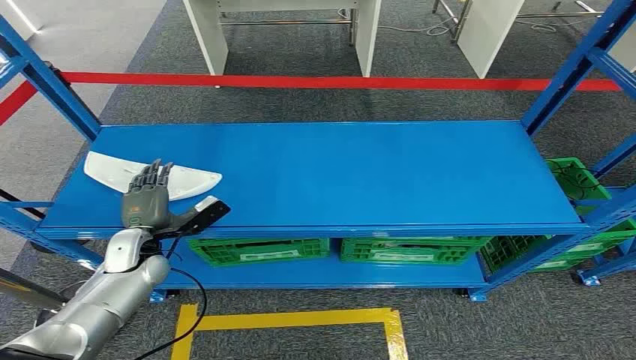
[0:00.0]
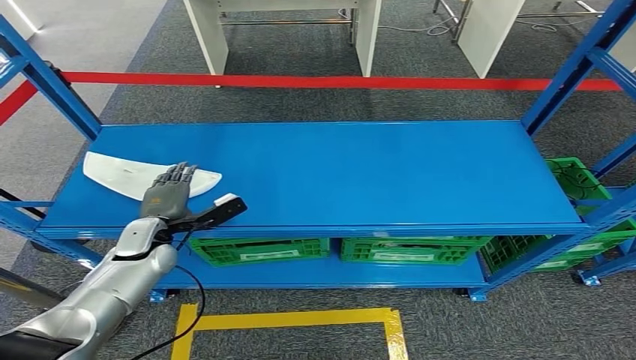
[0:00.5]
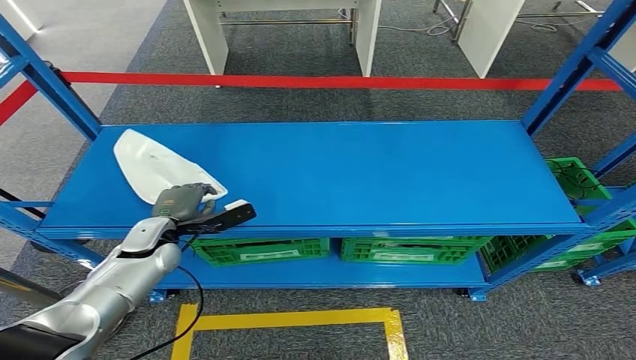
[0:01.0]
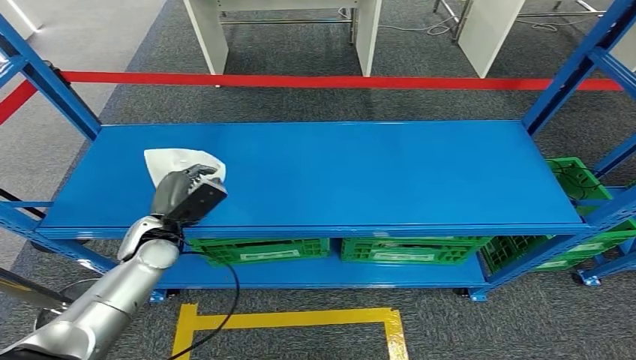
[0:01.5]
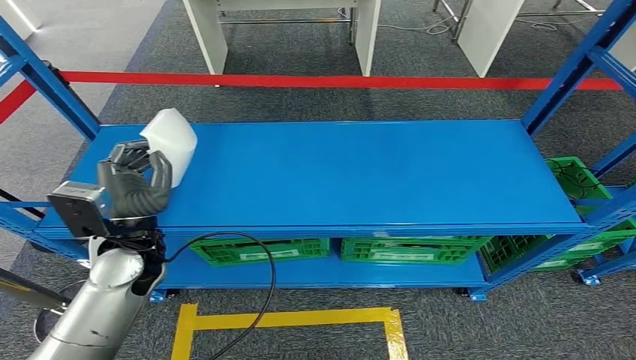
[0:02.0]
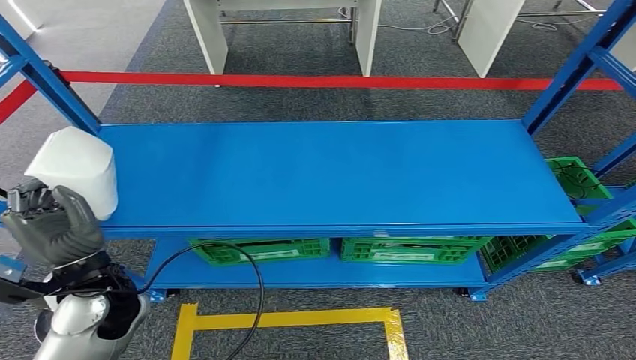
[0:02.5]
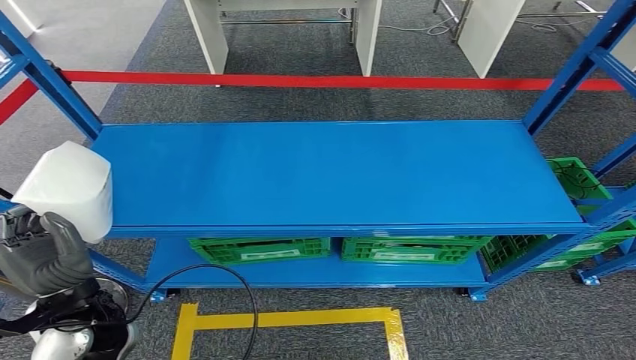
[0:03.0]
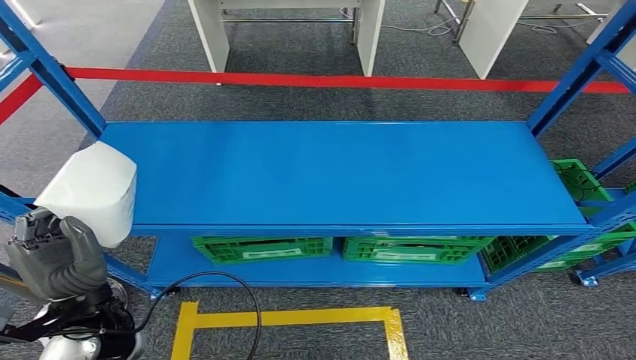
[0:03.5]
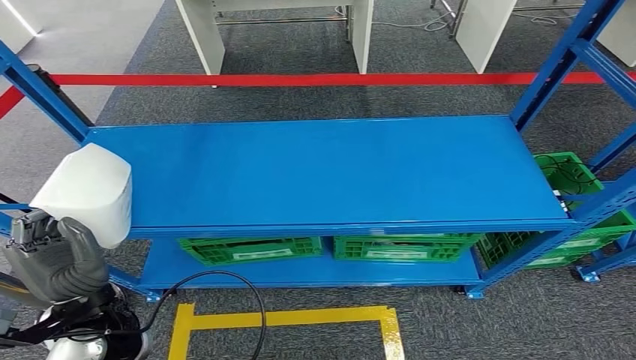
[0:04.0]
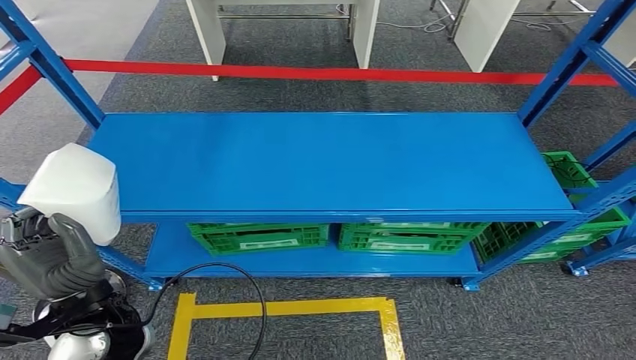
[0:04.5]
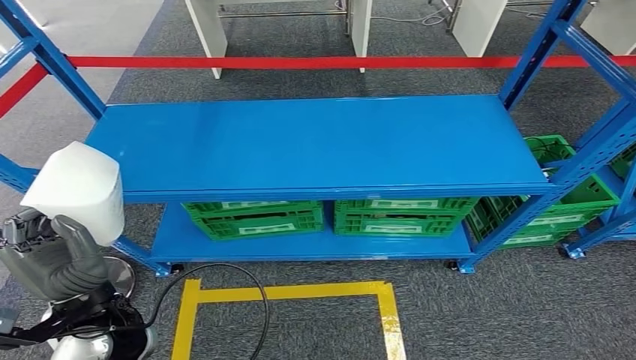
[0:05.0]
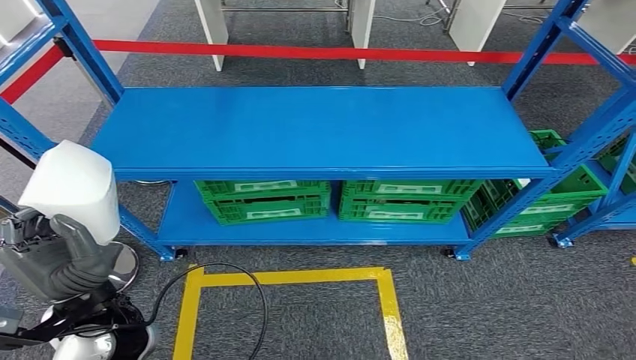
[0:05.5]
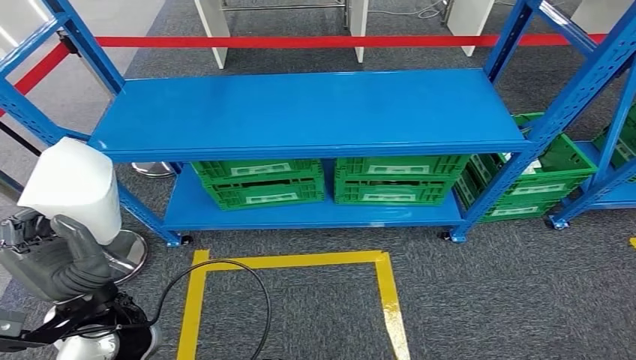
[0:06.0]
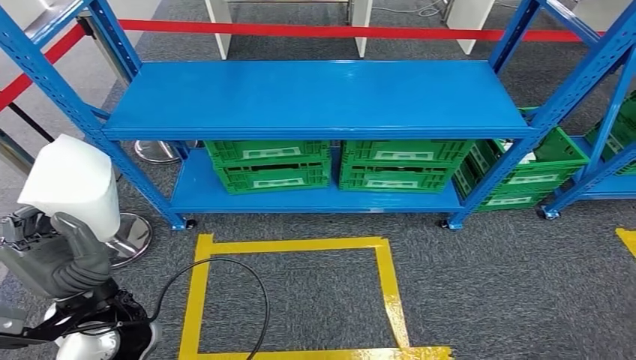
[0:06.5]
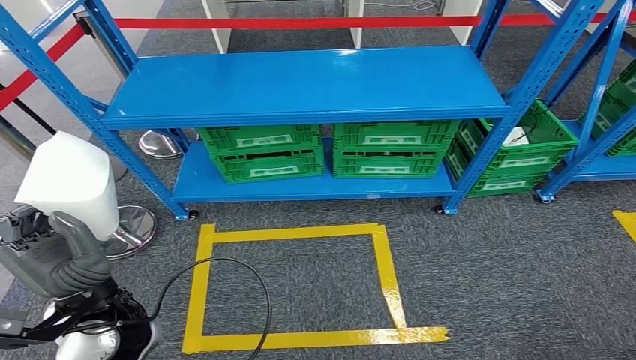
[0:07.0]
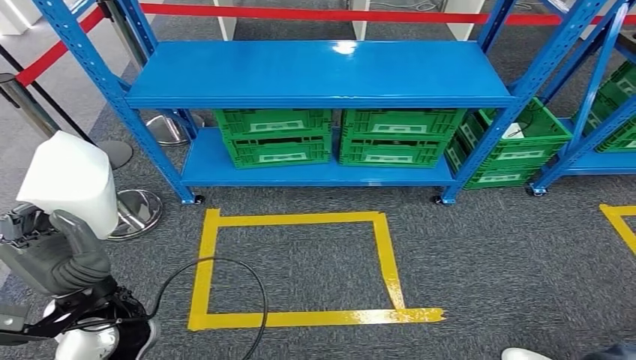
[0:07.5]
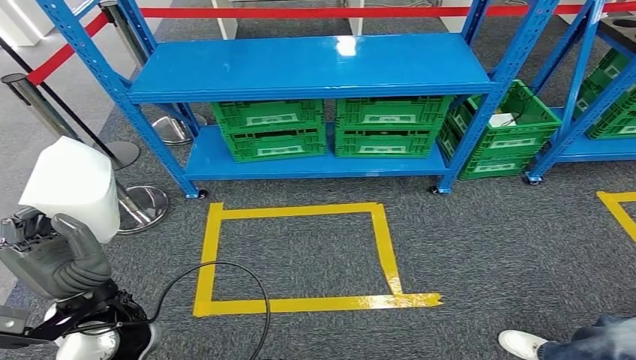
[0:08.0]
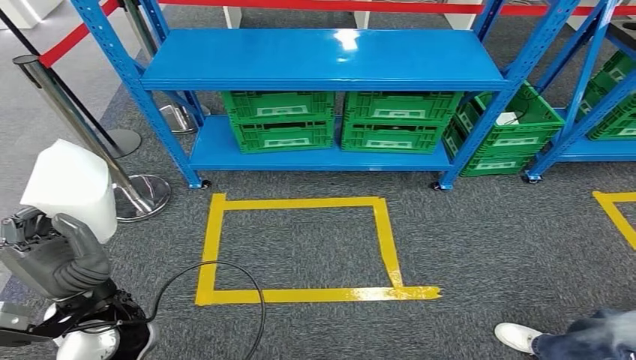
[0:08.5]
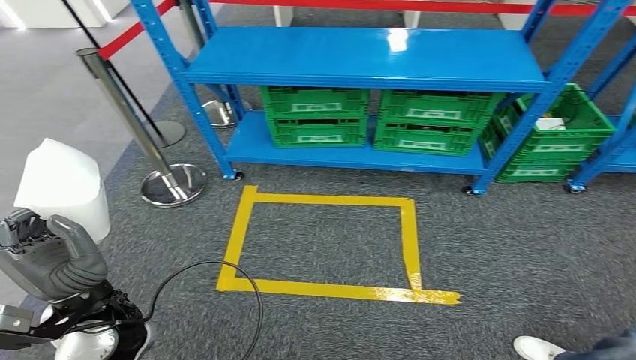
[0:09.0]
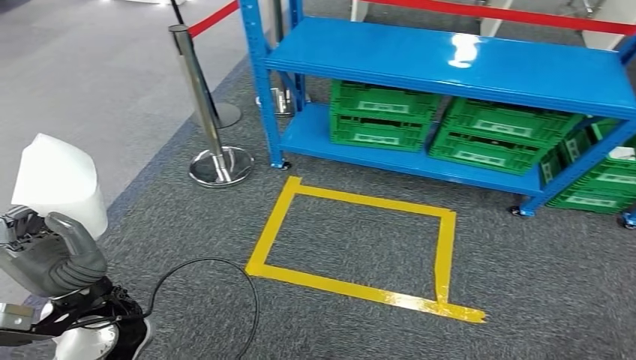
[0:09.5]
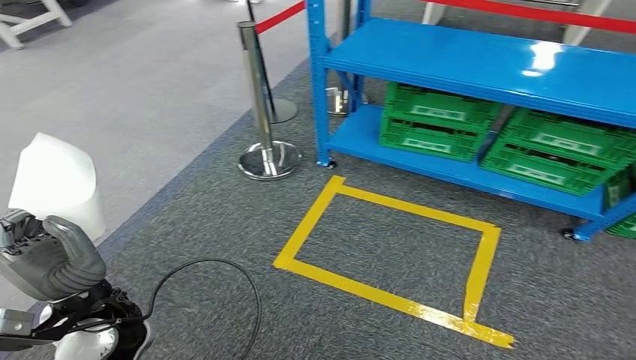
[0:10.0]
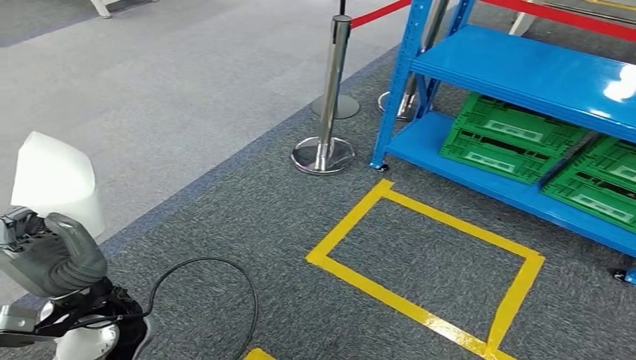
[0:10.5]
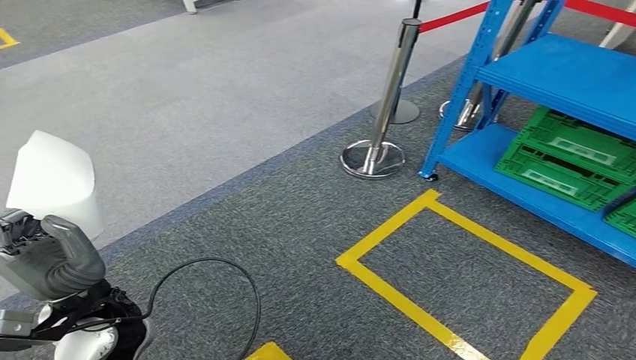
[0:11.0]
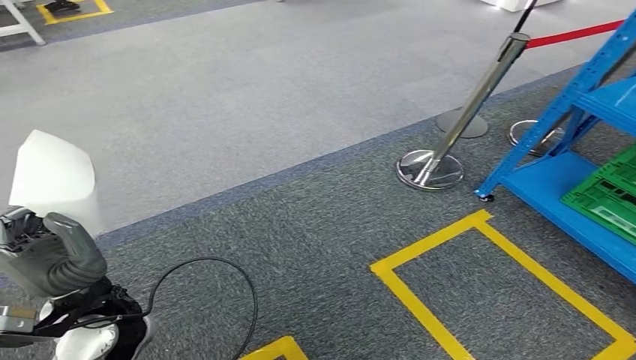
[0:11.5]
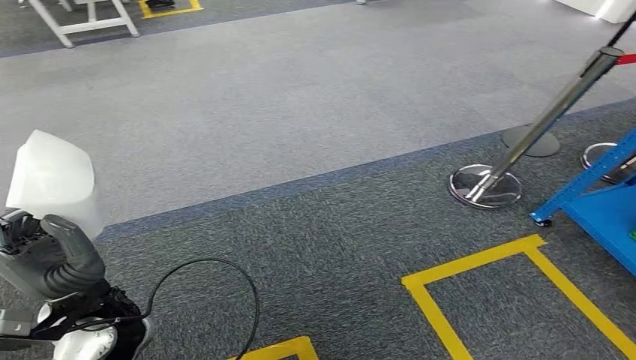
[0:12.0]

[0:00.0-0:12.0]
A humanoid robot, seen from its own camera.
Step, 0:00.0 to 0:04.0: Pick up the small parts from the shelf.

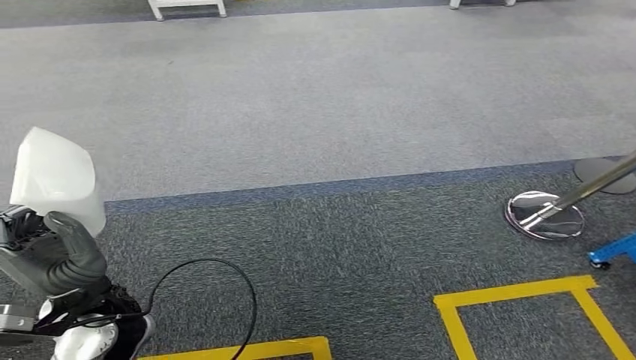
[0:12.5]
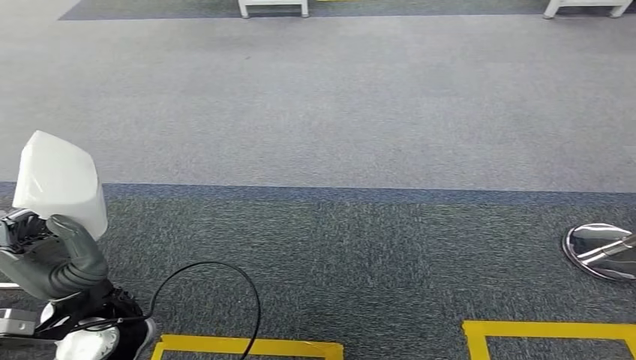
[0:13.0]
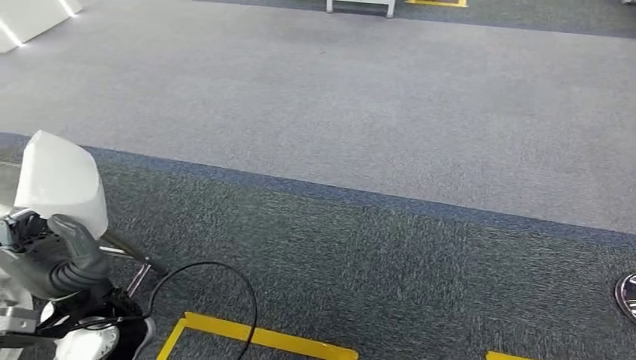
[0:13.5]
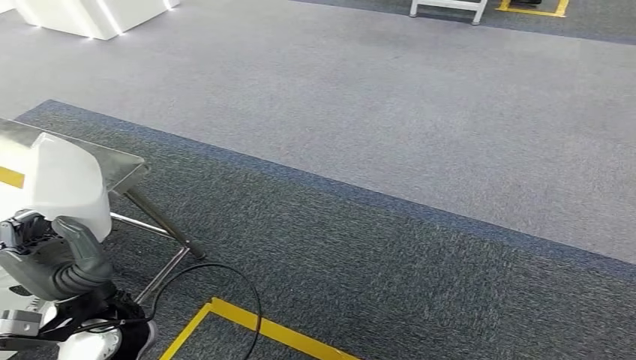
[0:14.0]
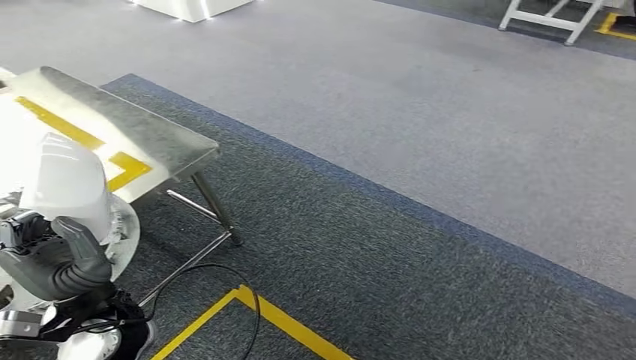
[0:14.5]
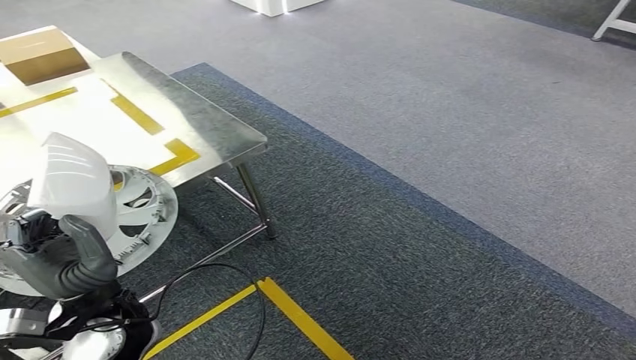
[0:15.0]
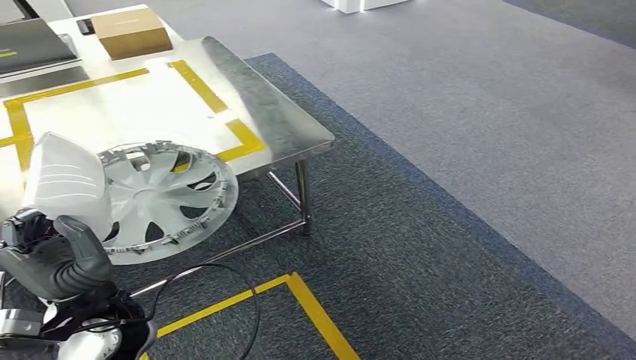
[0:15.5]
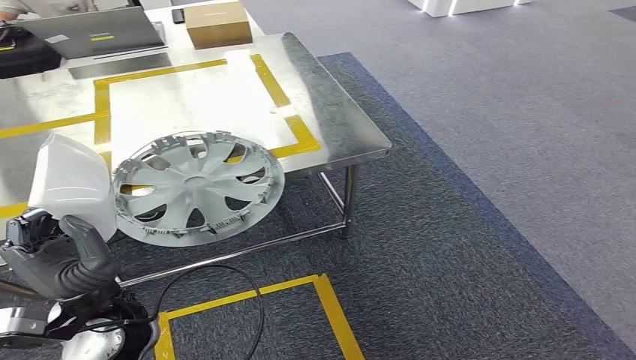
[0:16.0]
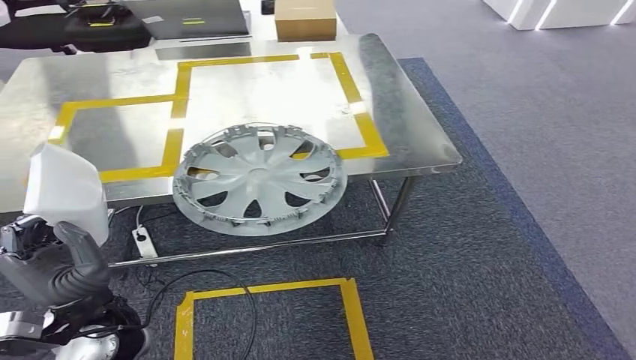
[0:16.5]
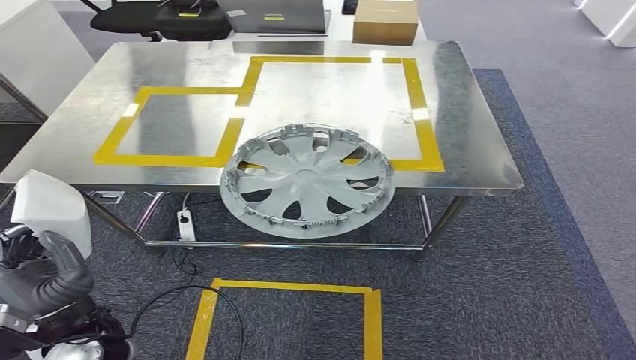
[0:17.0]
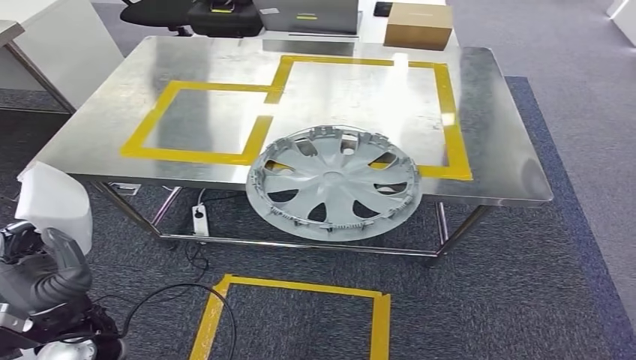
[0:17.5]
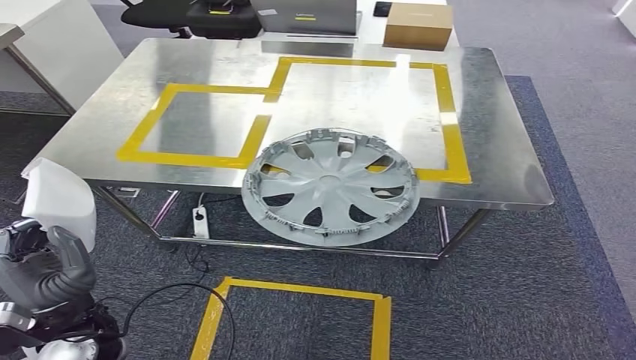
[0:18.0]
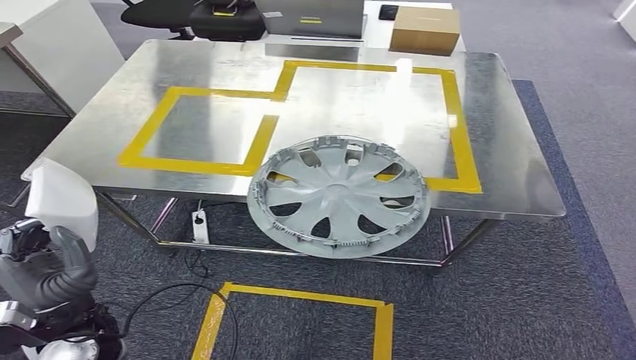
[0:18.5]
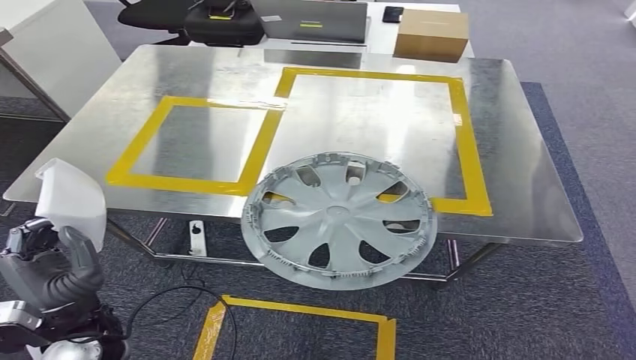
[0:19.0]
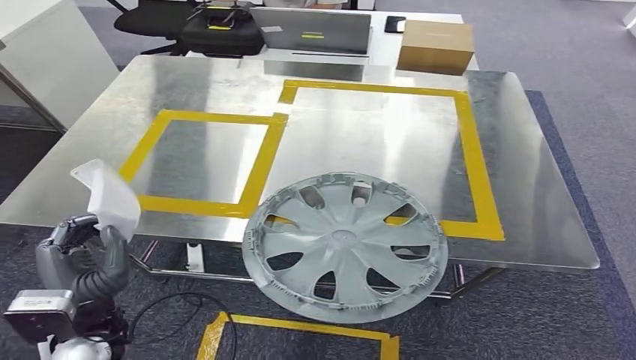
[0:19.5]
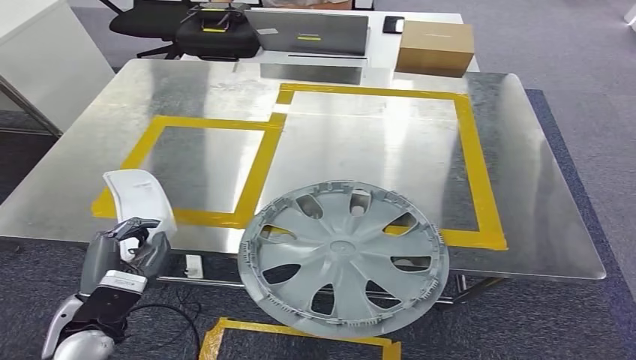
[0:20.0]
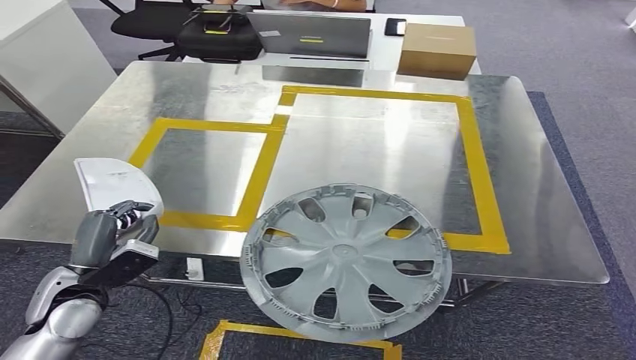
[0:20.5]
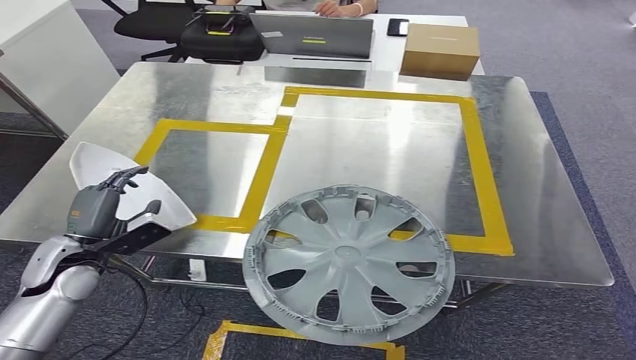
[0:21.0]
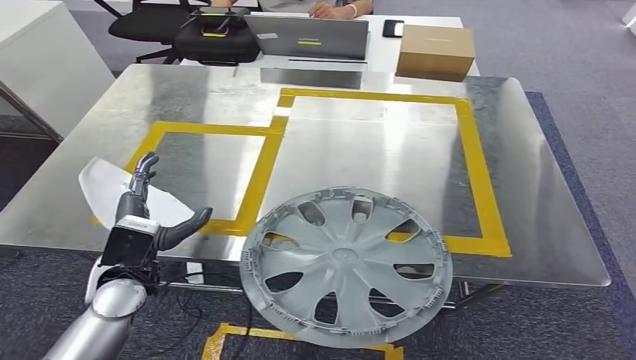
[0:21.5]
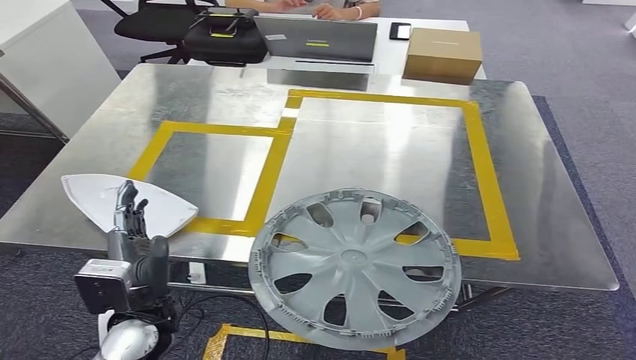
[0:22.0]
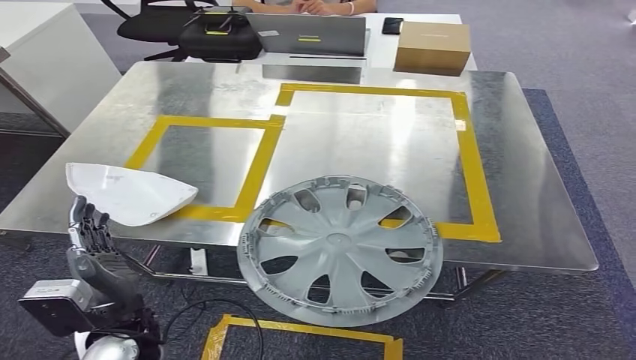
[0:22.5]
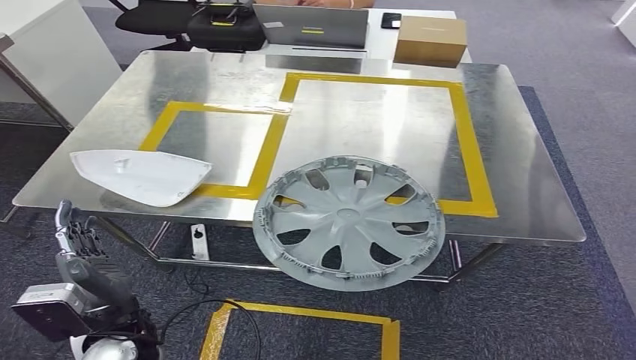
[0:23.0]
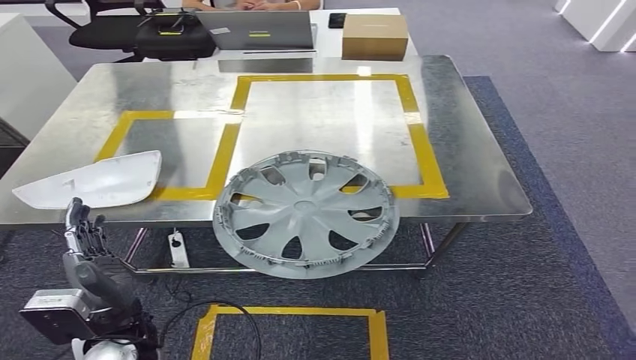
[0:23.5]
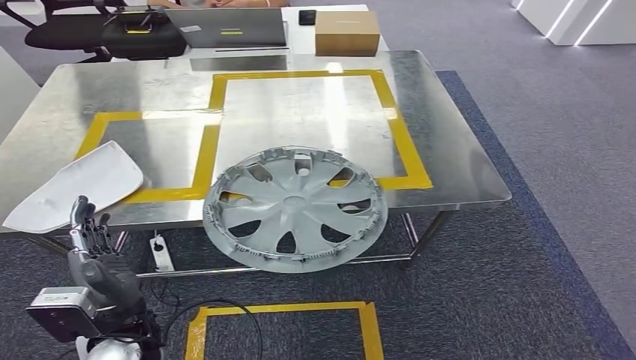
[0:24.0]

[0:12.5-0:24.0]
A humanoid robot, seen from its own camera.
Step, 0:12.5 to 0:18.5: Move the small parts to the workbench.
Step, 0:19.0 to 0:23.0: Insert the small parts into the corresponding holes on the workbench.
